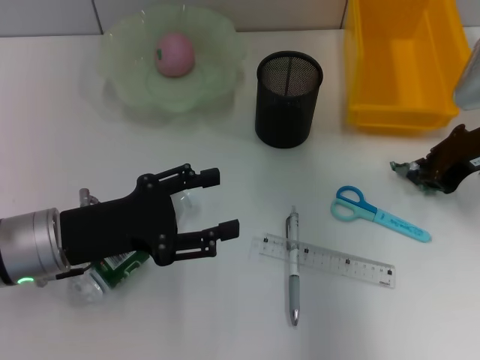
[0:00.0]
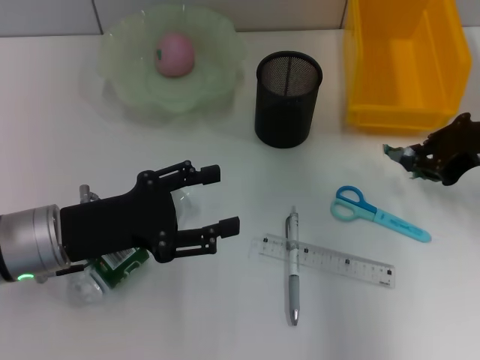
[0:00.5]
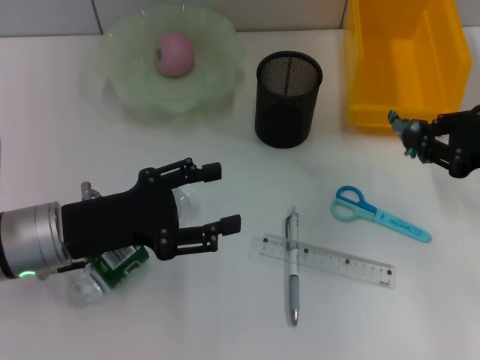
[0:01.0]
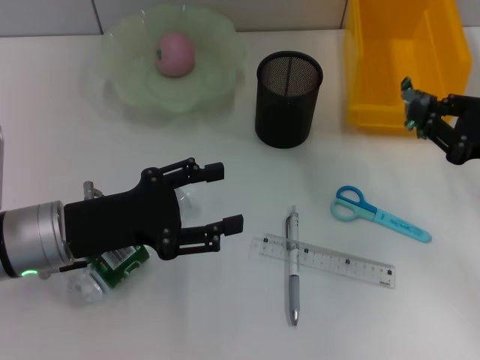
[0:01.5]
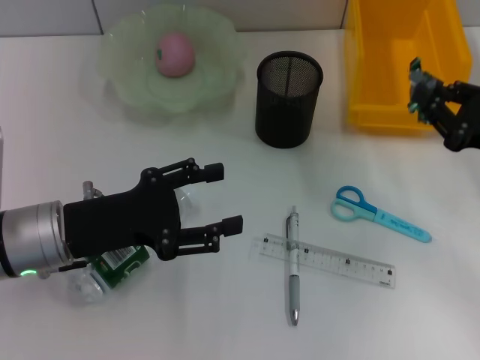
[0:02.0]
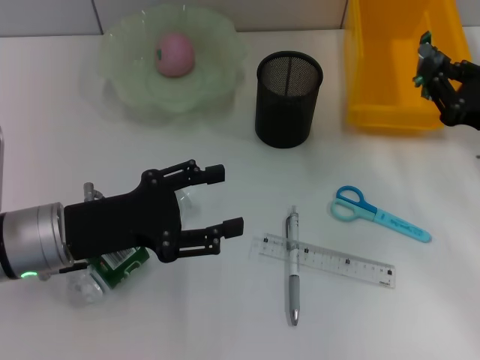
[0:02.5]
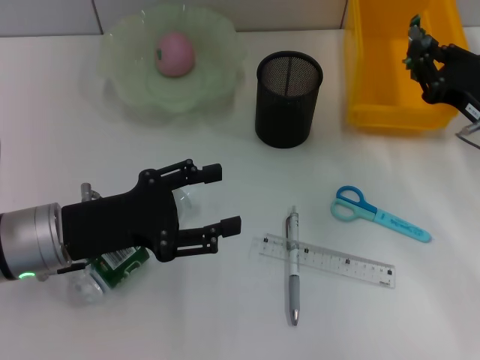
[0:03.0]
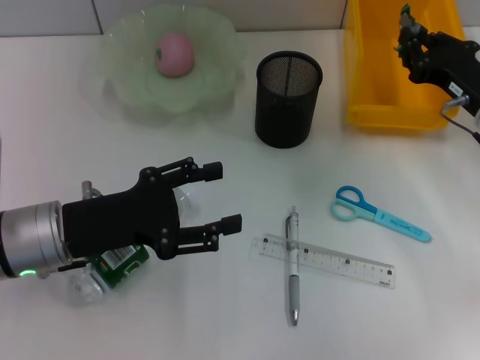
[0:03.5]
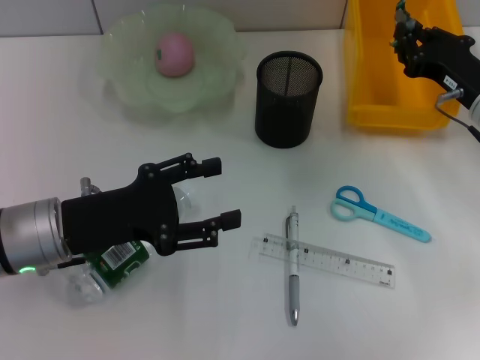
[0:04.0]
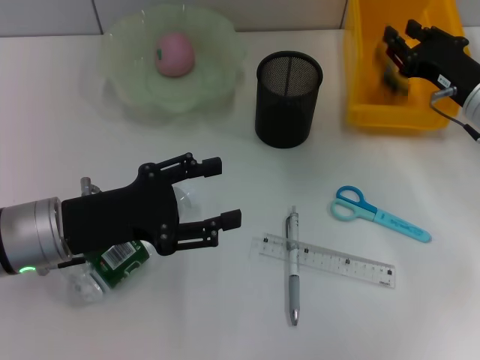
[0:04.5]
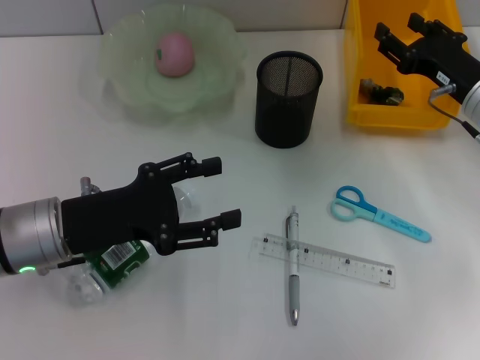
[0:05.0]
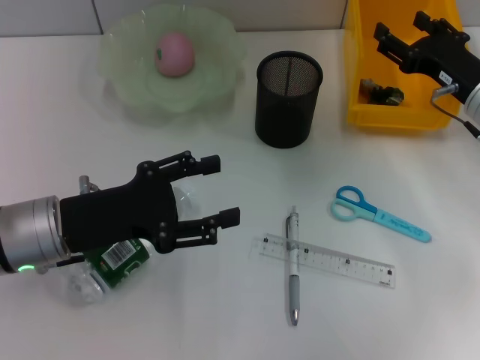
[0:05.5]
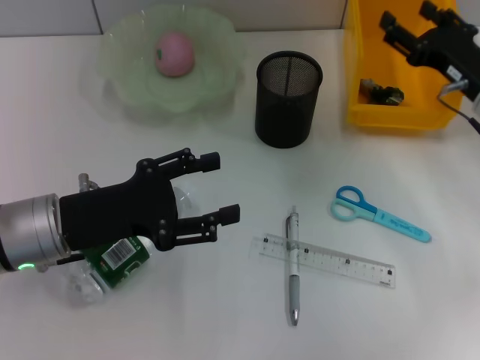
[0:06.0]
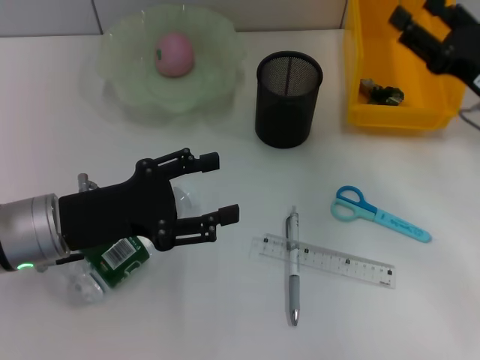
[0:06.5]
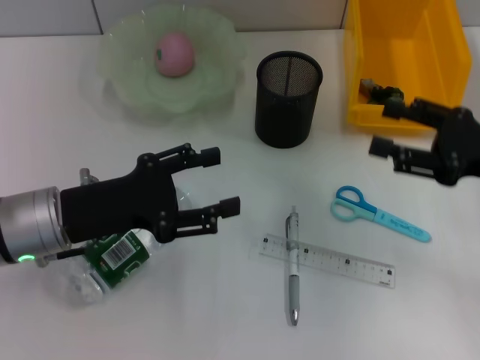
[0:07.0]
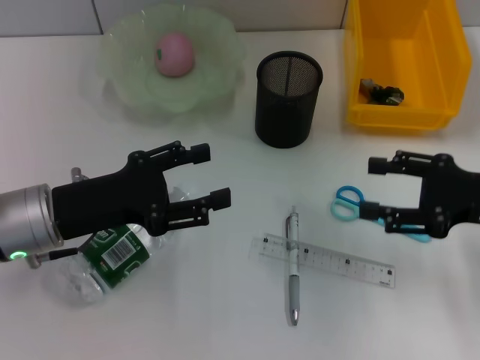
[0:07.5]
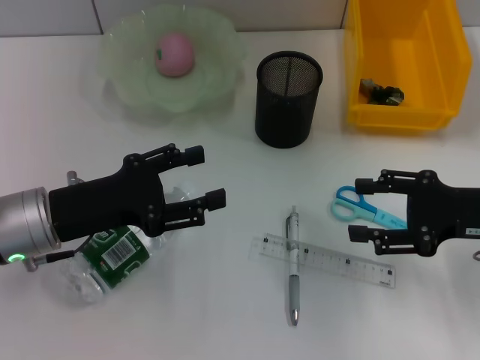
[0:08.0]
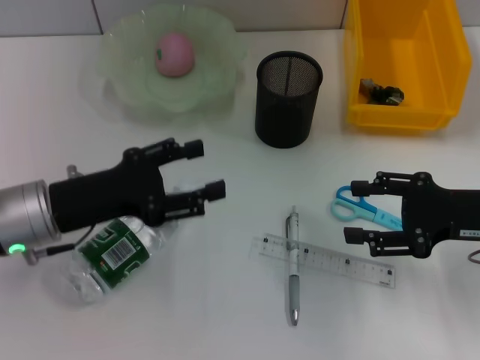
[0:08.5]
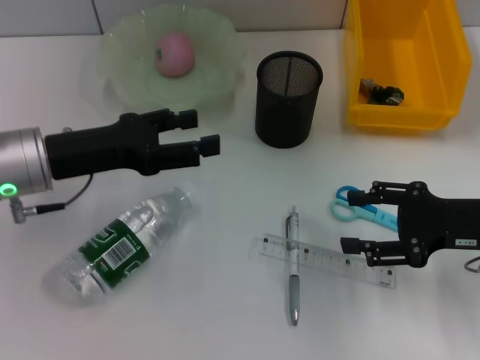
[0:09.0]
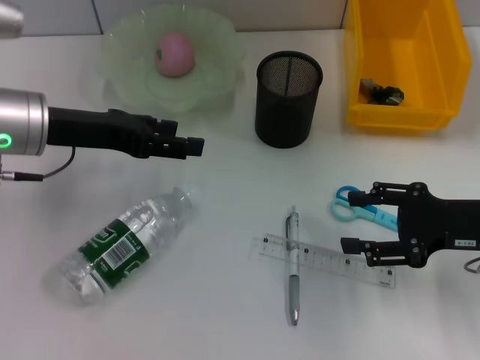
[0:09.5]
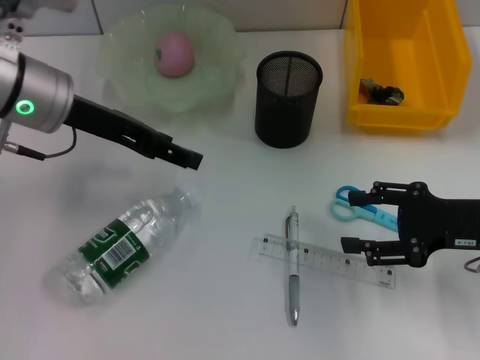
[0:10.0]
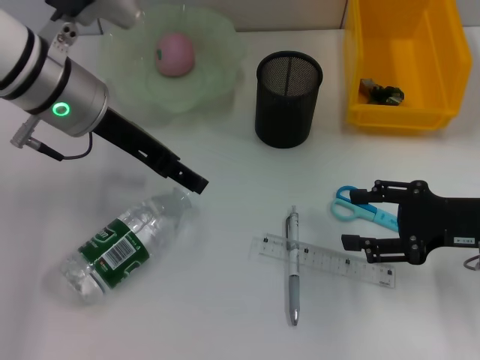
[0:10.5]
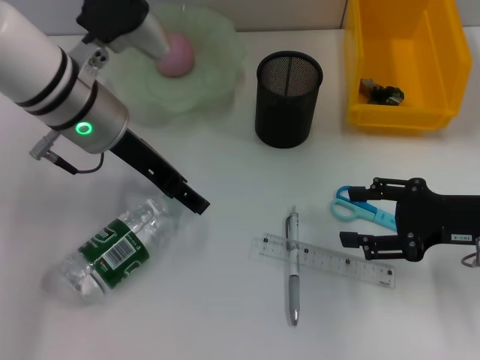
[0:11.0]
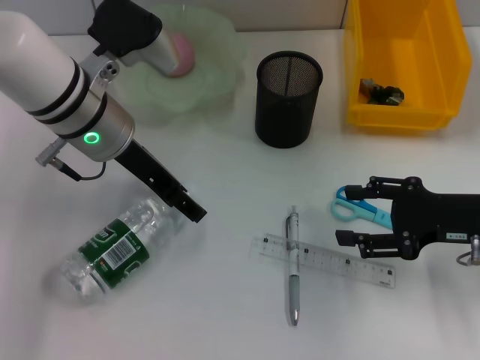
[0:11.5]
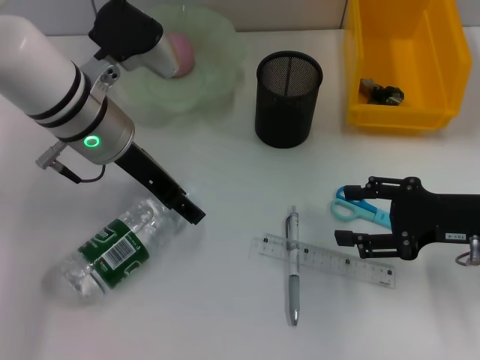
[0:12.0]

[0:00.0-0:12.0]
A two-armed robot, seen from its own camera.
Step, 0:00.0 to 0:05.0: Place the plastic into the trash can with the right hand.
0:00.0 to 0:02.0: The right gripper heads backward and downward, covering about 10 cm.
0:02.0 to 0:04.0: The right gripper goes about 10 cm forward.
0:04.0 to 0:06.0: The right gripper opens up.
0:06.0 to 0:08.0: The right gripper travels backward by approximately 10 cm.
0:08.0 to 0:10.0: The left gripper heads forward and upward, covering some 15 cm.
0:10.0 to 0:12.0: The left gripper travels to the right by about 5 cm.

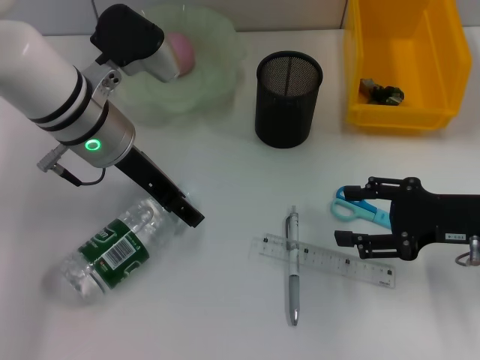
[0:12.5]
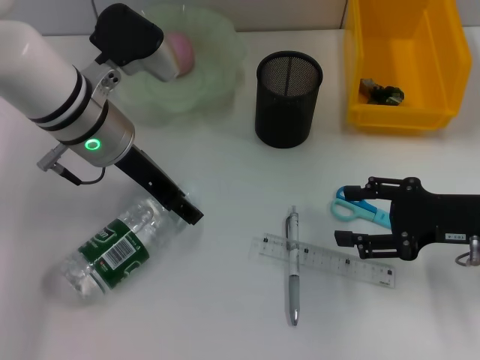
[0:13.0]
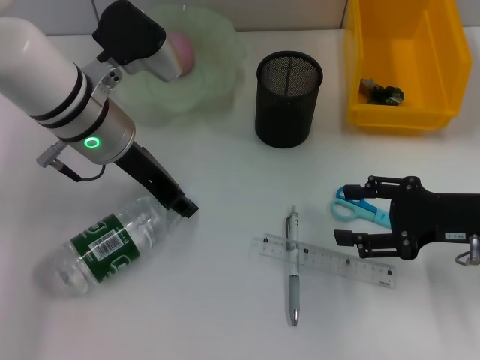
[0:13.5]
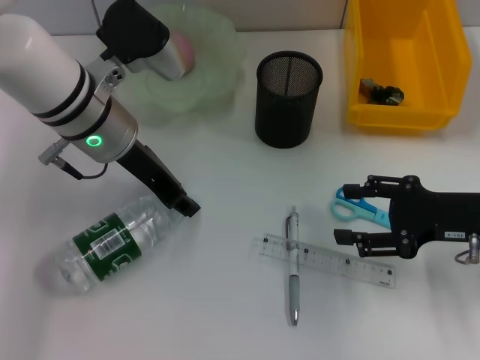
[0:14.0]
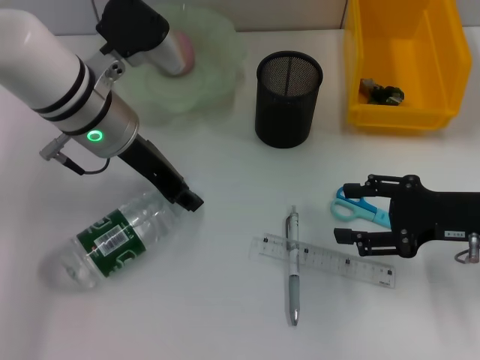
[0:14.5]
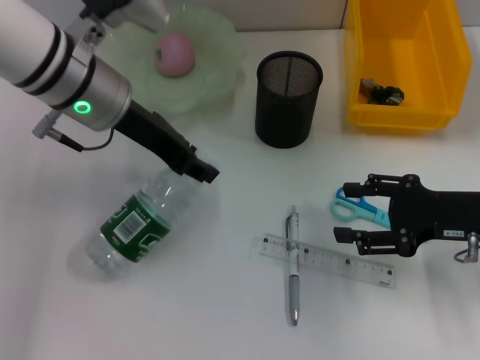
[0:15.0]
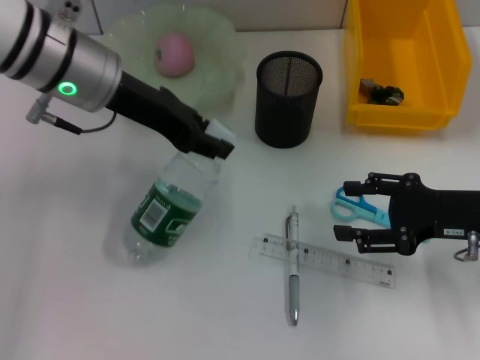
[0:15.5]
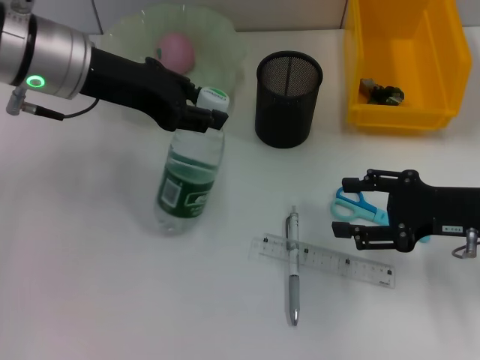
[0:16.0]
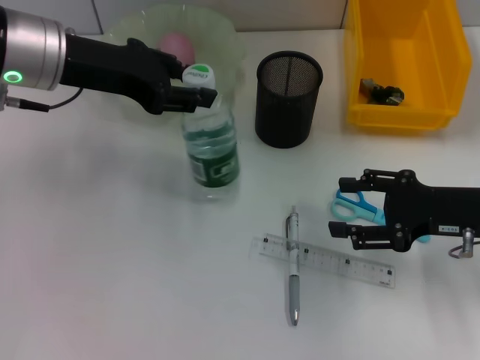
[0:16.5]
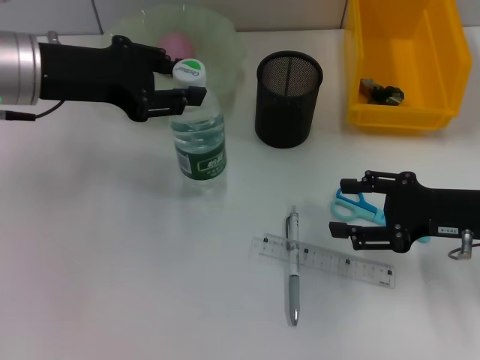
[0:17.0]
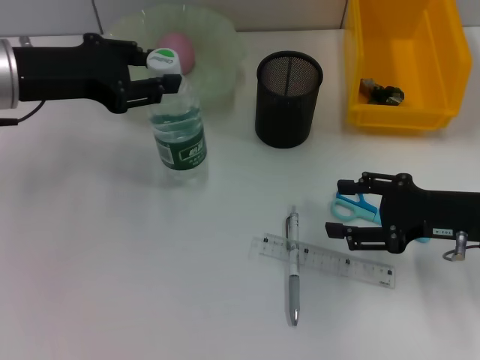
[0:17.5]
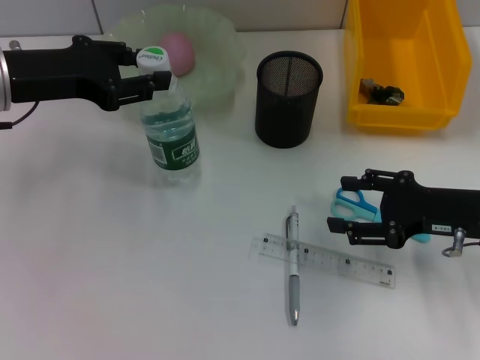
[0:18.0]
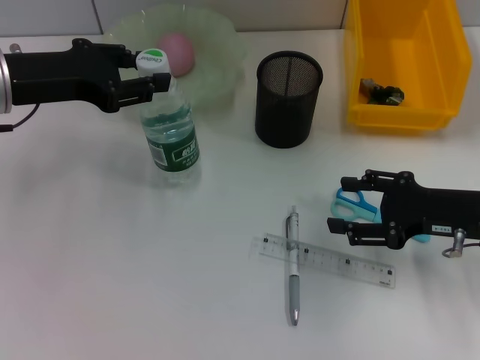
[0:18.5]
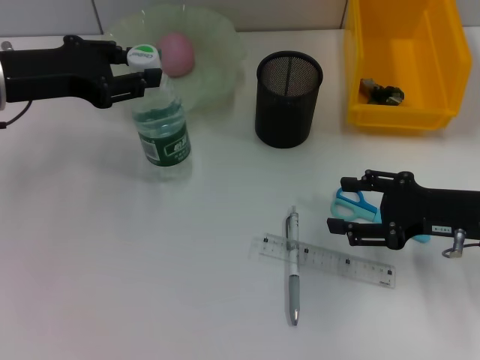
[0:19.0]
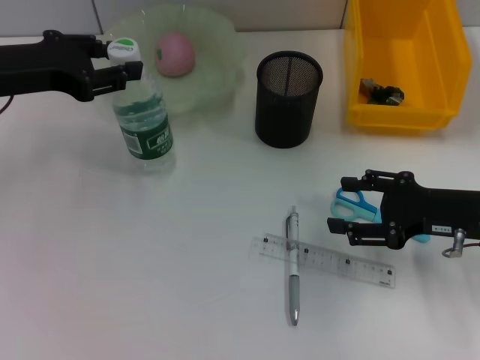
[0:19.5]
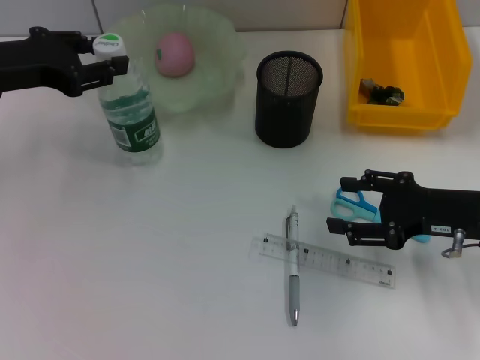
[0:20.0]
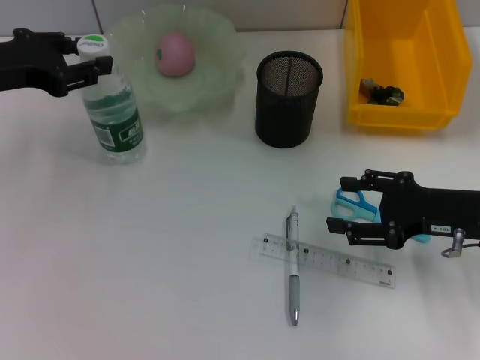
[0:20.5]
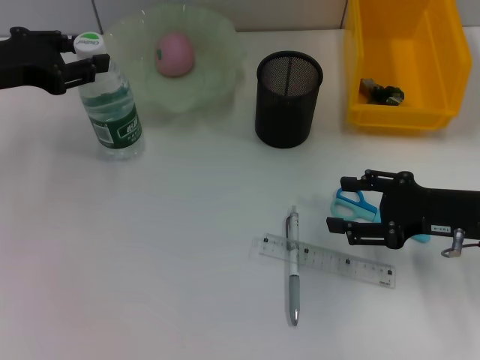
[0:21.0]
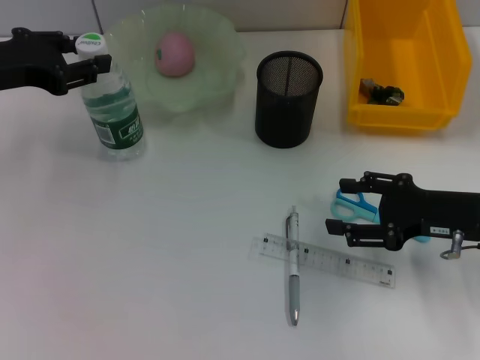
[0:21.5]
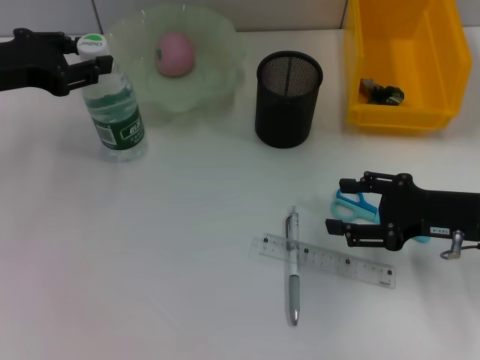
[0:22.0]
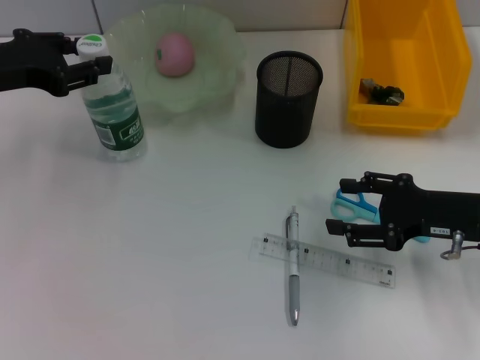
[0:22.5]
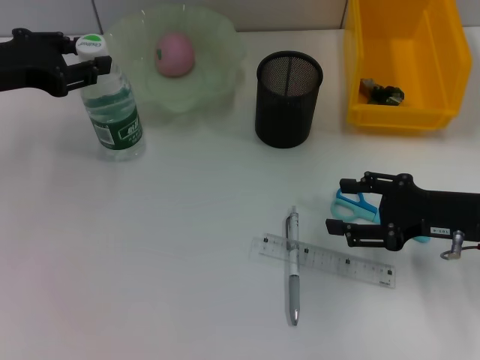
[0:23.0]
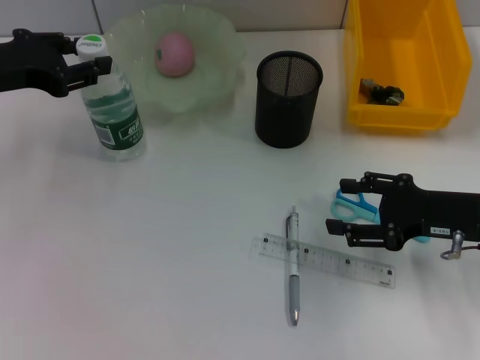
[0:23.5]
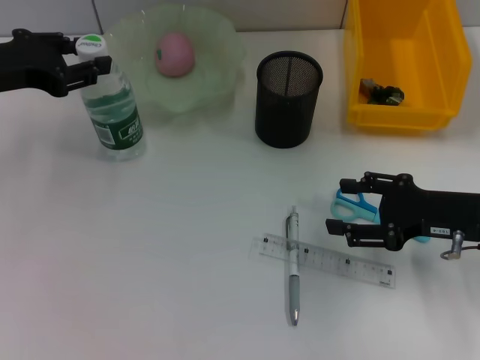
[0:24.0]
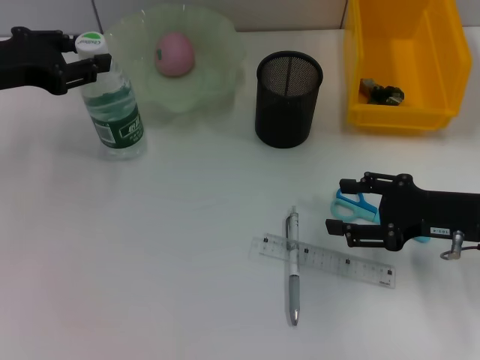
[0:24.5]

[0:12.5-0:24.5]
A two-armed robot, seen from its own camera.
0:12.5 to 0:14.5: The left gripper closes up.
0:14.5 to 0:16.5: The left gripper is displaced to the left and upward by some 10 cm.
0:16.5 to 0:18.5: The left gripper goes approximately 5 cm to the left.
0:18.5 to 0:20.5: The grippers move only a little.
0:20.5 to 0:24.5: Neither gripper changes place.

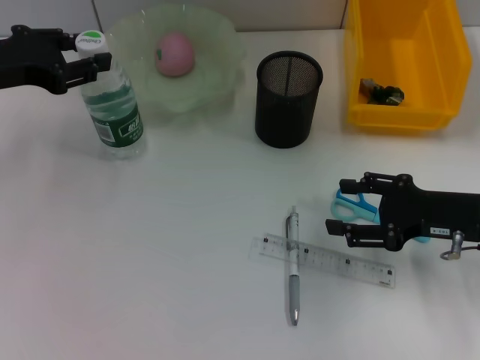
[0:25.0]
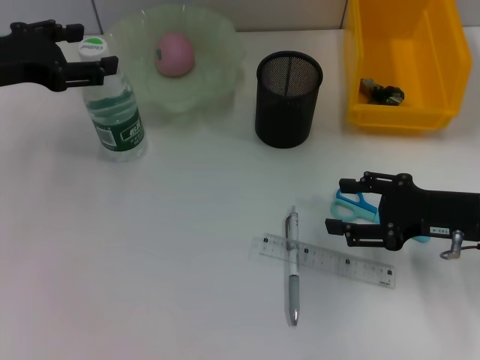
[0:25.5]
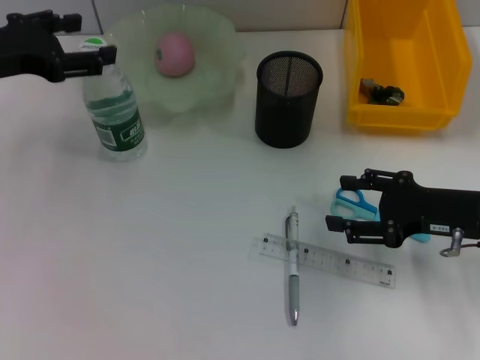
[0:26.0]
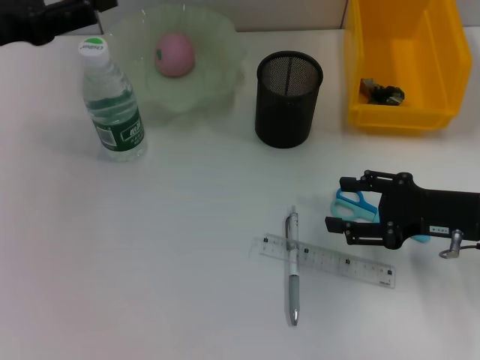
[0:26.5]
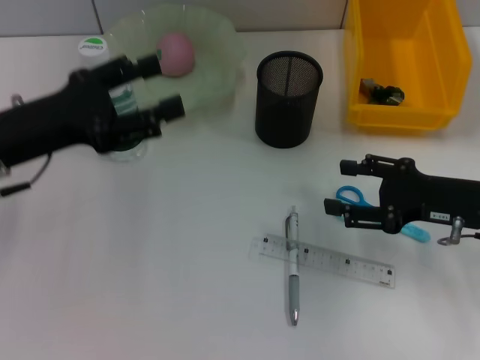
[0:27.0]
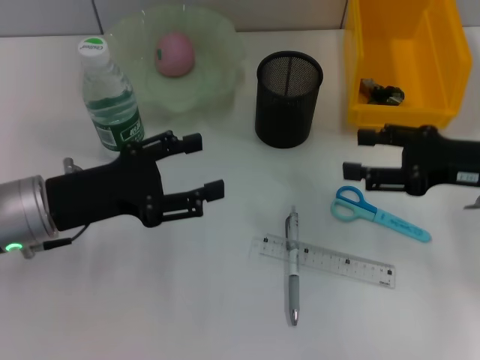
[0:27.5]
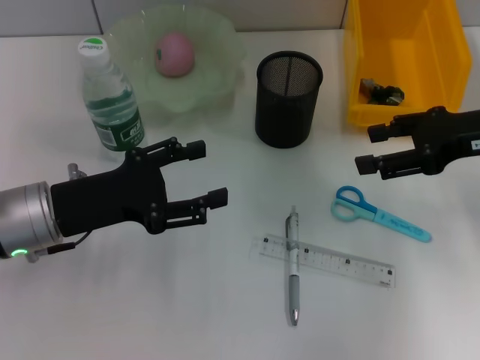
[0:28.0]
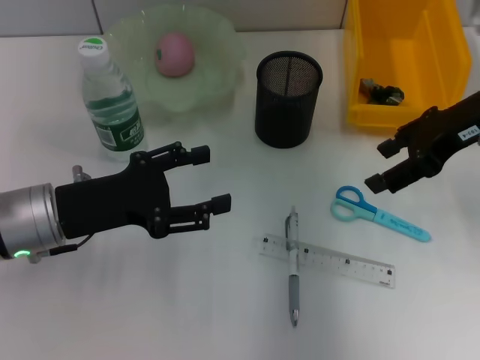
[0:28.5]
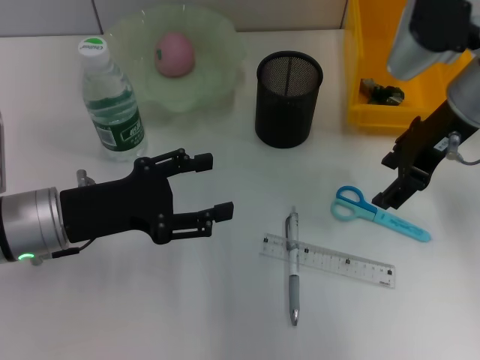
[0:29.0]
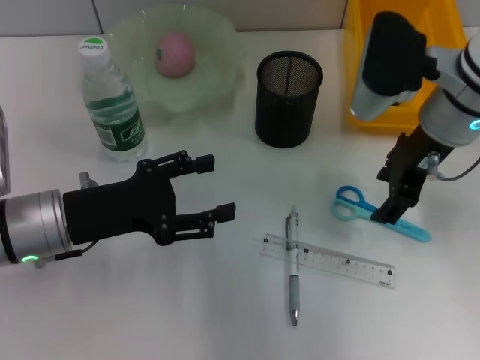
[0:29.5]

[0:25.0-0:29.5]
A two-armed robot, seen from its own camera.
0:25.0 to 0:27.0: The left gripper shifts some 5 cm backward, and opens.
0:27.0 to 0:29.5: The left gripper goes some 5 cm downward; the right gripper shifts approximately 15 cm to the left, upward and forward.
